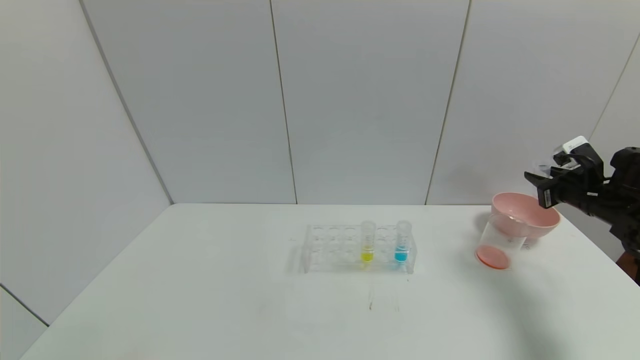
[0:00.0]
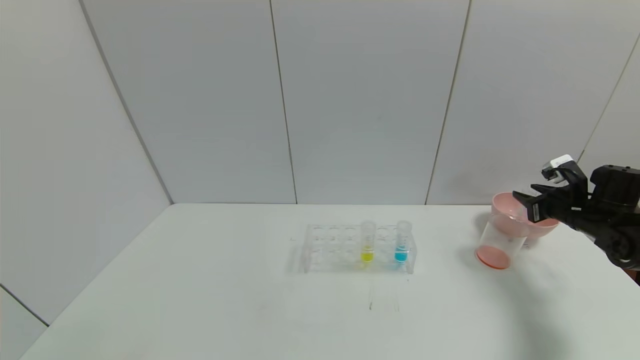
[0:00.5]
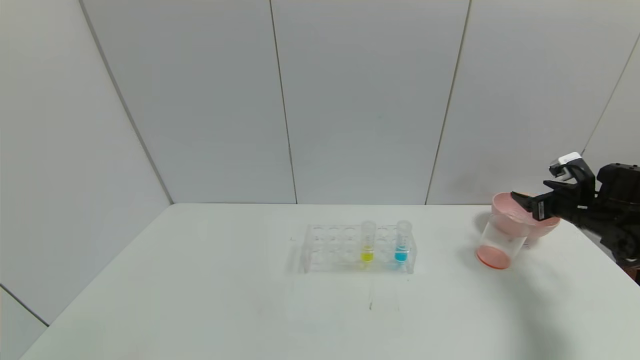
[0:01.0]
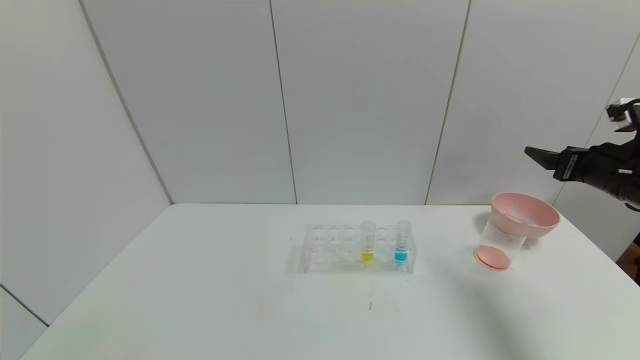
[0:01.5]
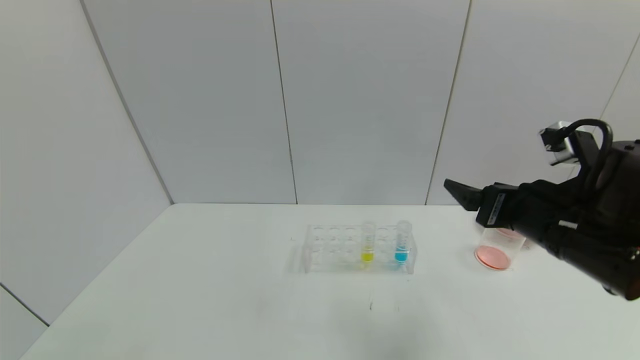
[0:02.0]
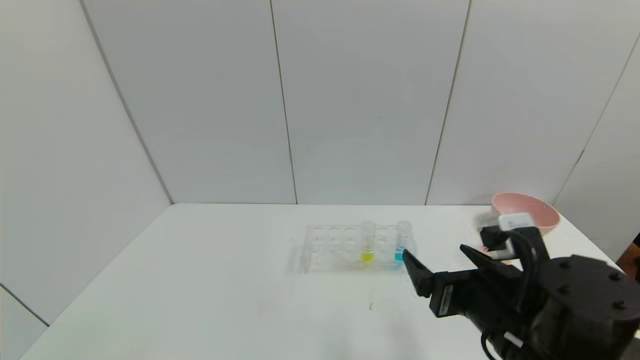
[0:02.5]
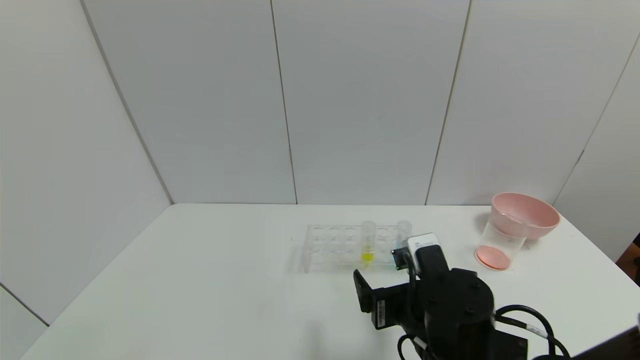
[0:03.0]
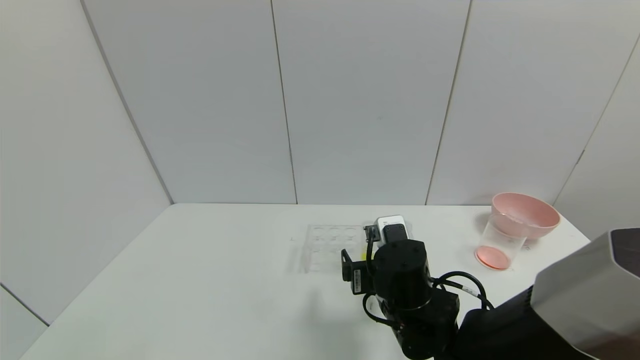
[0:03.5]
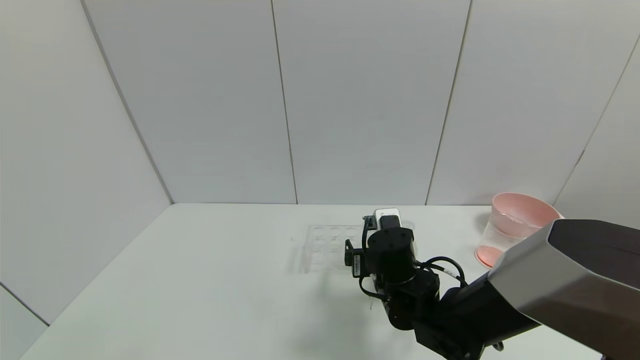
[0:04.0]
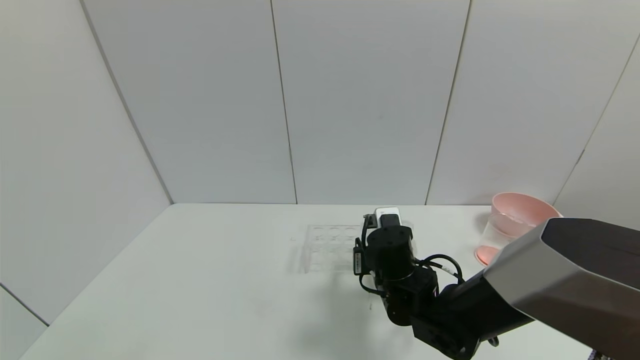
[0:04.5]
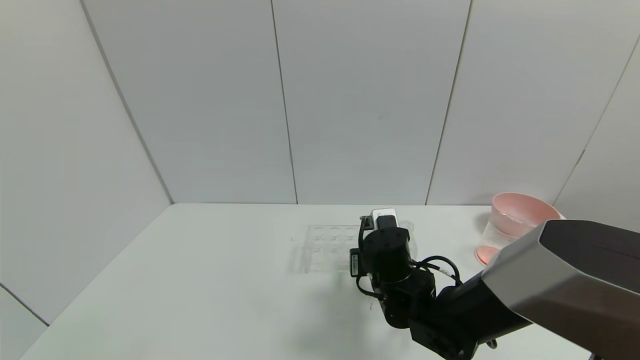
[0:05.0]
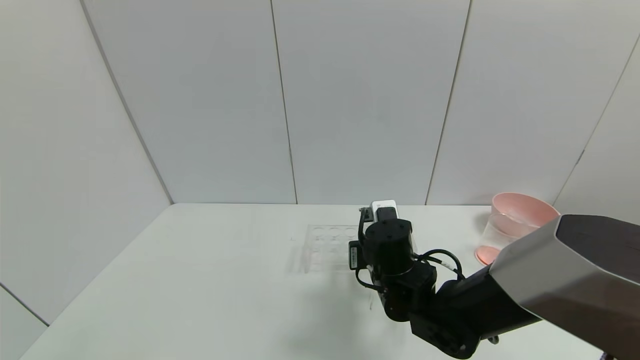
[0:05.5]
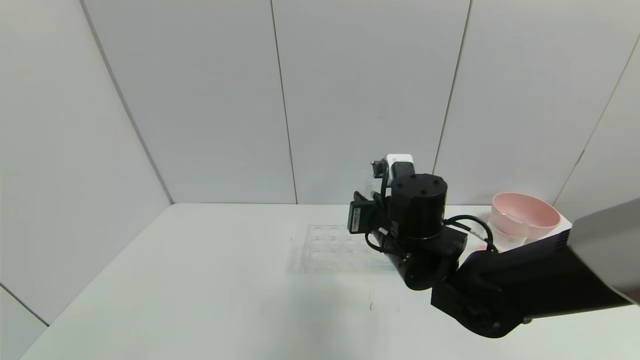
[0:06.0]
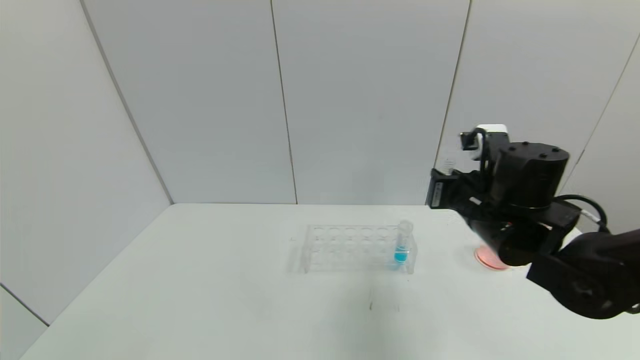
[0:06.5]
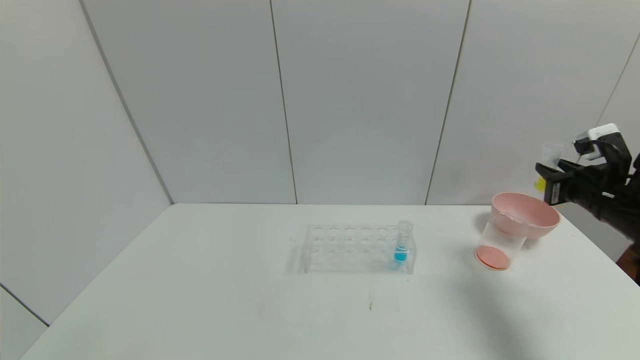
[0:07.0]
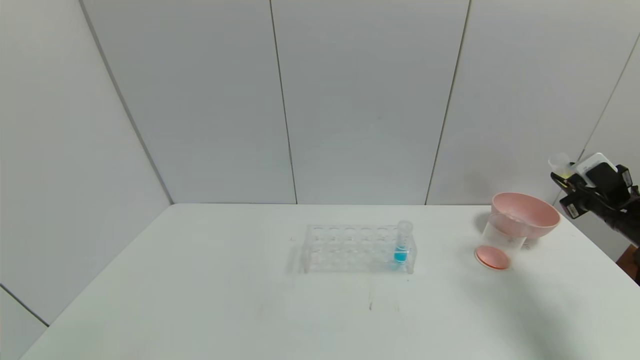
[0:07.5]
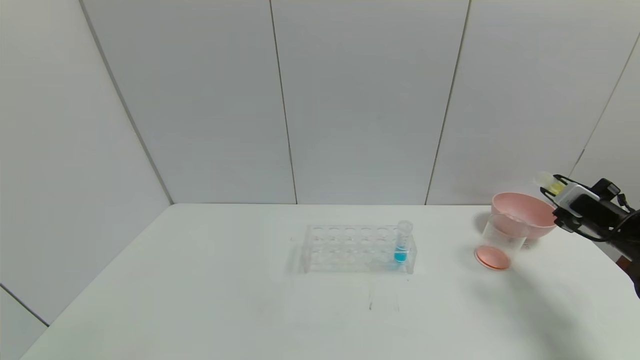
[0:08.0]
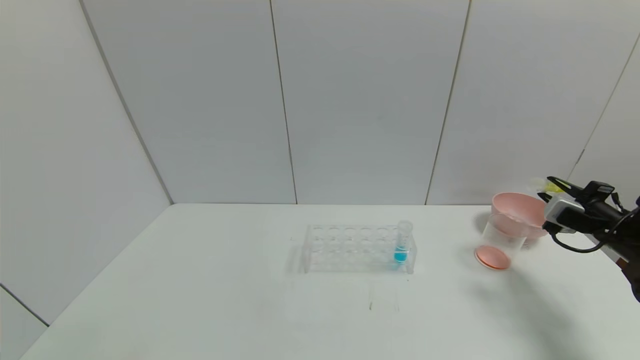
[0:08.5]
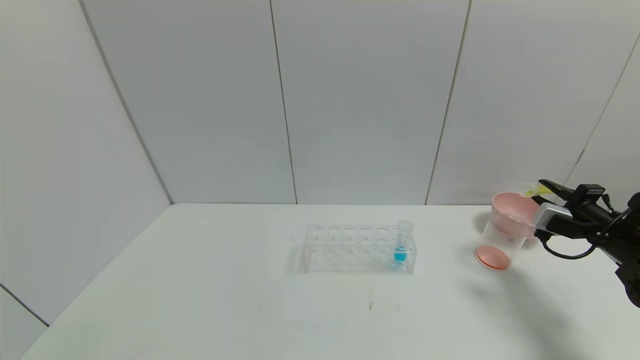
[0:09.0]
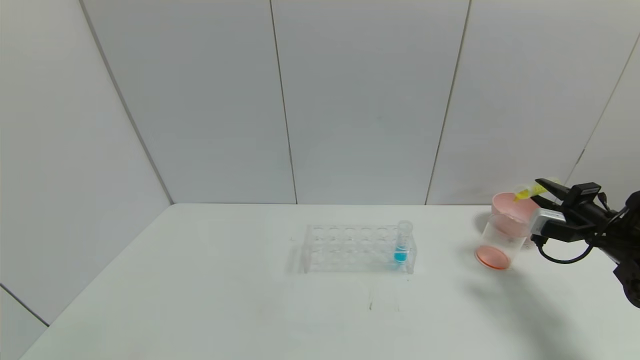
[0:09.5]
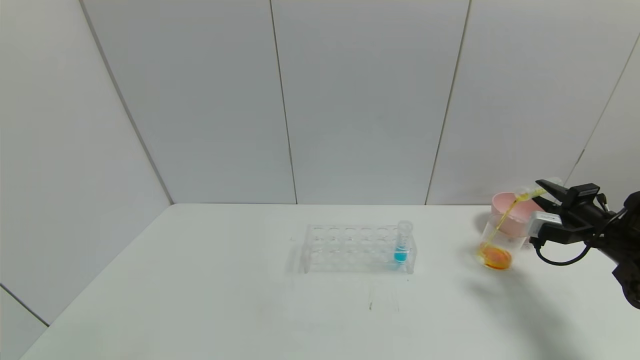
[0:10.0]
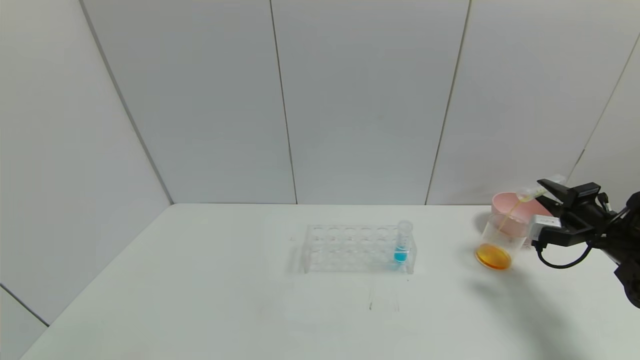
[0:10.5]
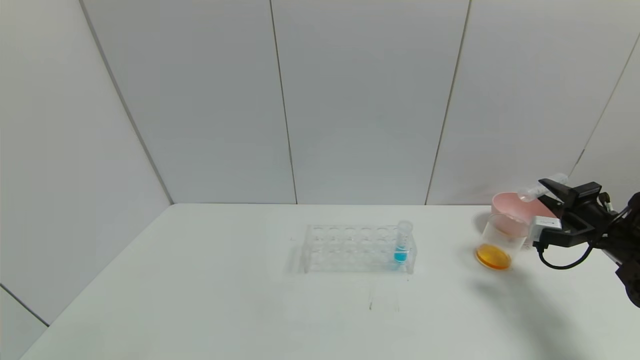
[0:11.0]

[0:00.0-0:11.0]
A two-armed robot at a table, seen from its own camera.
Task of the whole recording: pick up the test tube with yellow pigment and the test tube with red pigment by grippers and pour them into the beaker.
Step, 0:00.0 to 0:01.5: Place the test tube into the bowl with right gripper.
Step, 0:02.0 to 0:06.5: Pick up the test tube containing the yellow reagent with right gripper.
0:00.0 to 0:02.0: The right gripper heads to the left and backward, covering approximately 25 cm, and opens up.
0:02.0 to 0:03.5: The right gripper heads to the left and downward, covering some 20 cm.
0:03.5 to 0:05.5: The right gripper closes.
0:05.5 to 0:07.5: The right gripper is displaced to the right by roughly 40 cm.

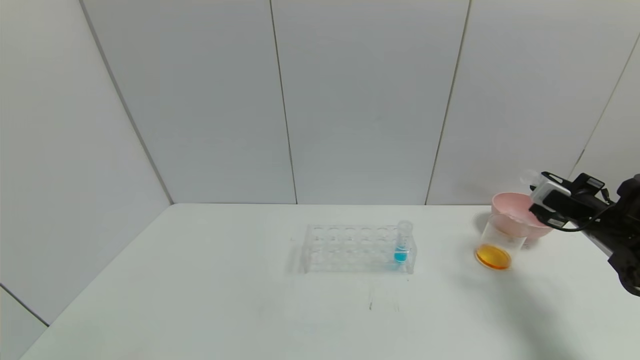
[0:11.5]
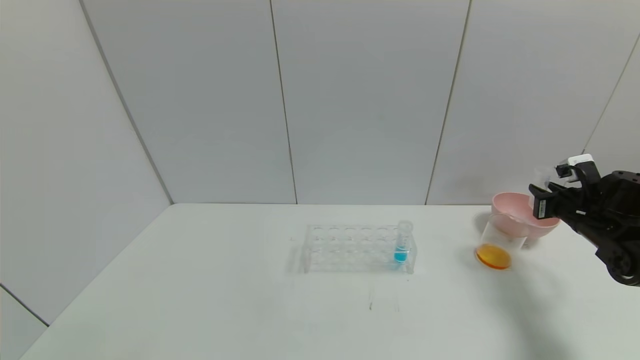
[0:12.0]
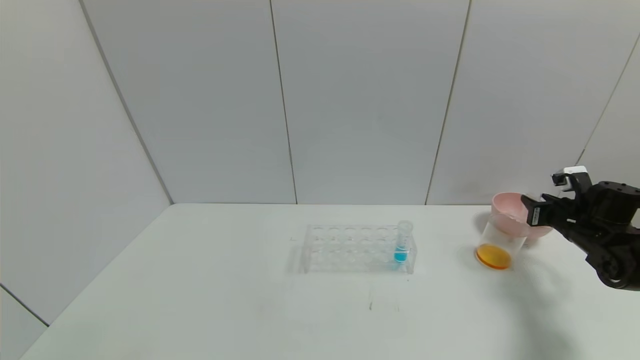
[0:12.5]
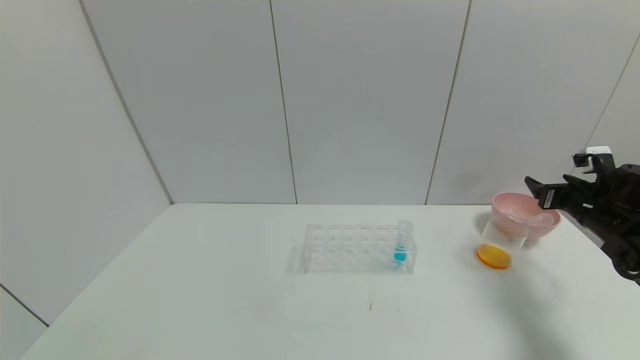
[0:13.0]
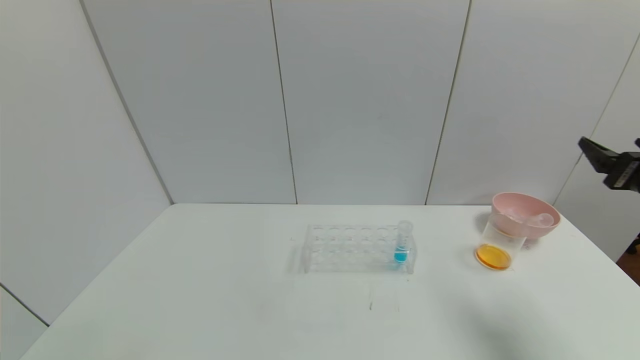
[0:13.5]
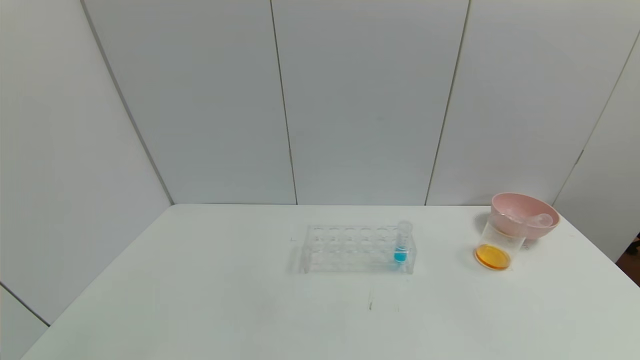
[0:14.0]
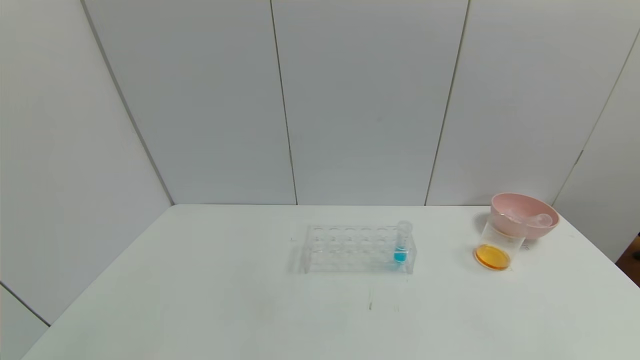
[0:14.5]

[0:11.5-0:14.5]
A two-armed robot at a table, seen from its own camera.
Task of the whole recording: pick up the test tube with yellow pigment and the test tube with red pigment by grippers and pour them into the beaker.
Step, 0:12.0 to 0:13.0: Place the test tube into the bowl with right gripper.
0:11.5 to 0:13.0: The right gripper opens up.
0:13.0 to 0:14.5: The right gripper heads backward, covering approximately 40 cm.
